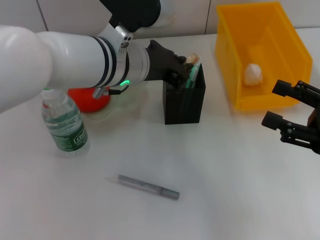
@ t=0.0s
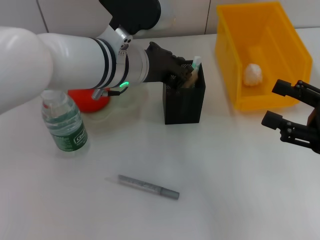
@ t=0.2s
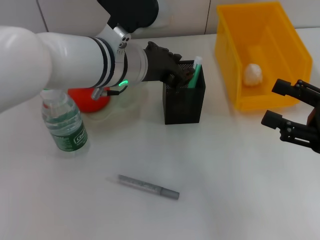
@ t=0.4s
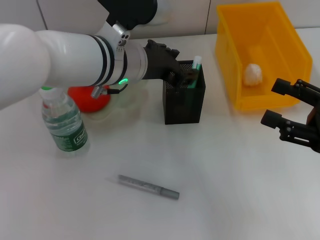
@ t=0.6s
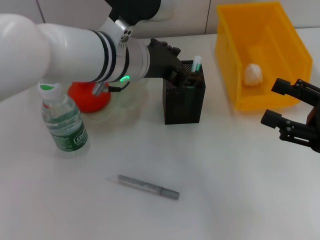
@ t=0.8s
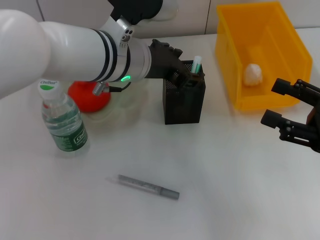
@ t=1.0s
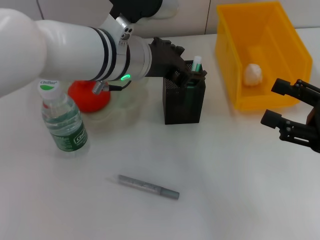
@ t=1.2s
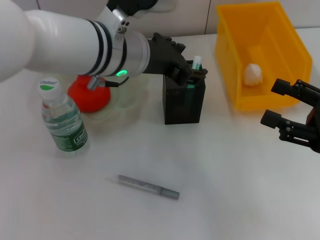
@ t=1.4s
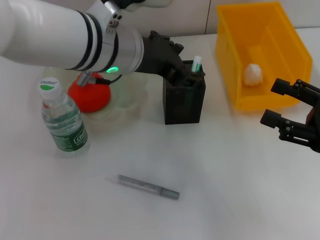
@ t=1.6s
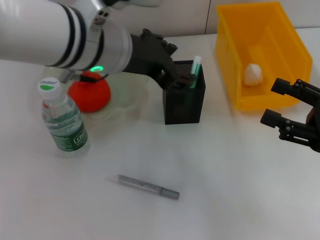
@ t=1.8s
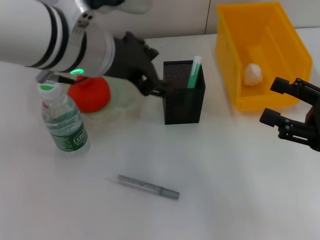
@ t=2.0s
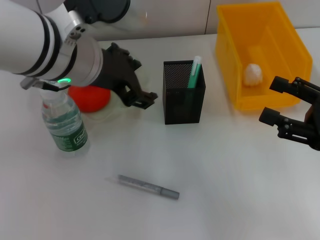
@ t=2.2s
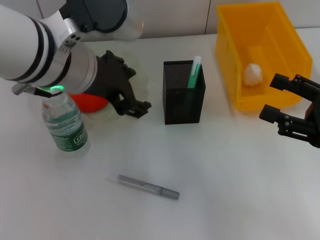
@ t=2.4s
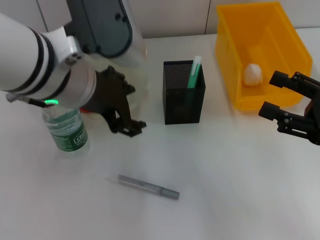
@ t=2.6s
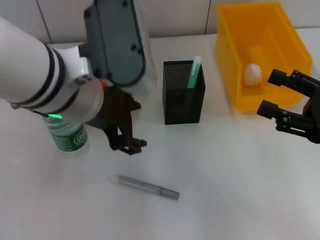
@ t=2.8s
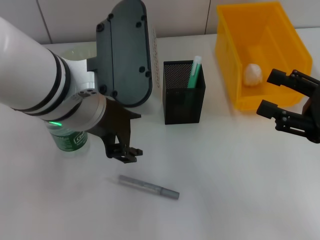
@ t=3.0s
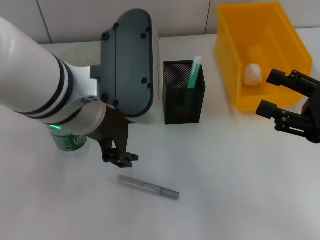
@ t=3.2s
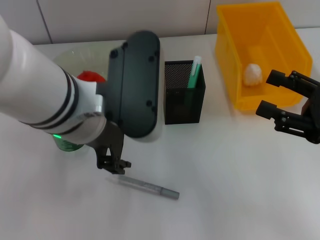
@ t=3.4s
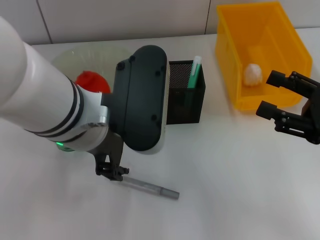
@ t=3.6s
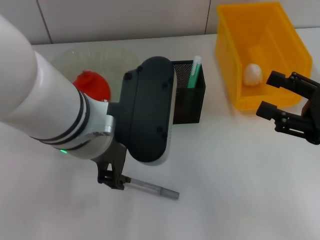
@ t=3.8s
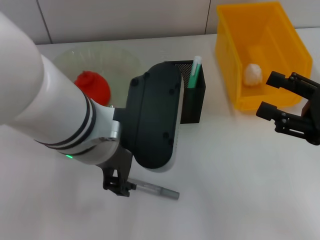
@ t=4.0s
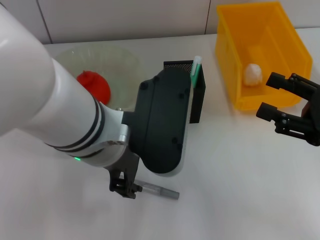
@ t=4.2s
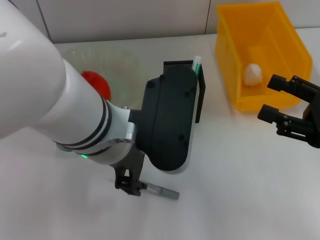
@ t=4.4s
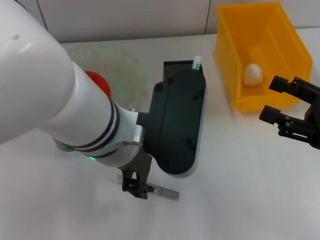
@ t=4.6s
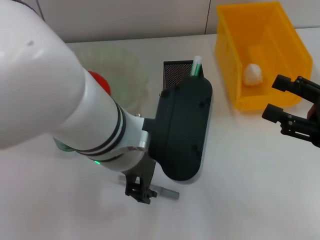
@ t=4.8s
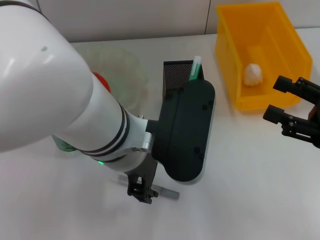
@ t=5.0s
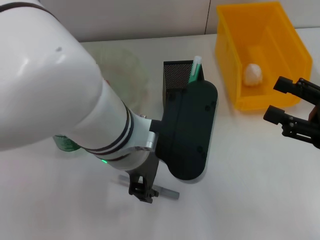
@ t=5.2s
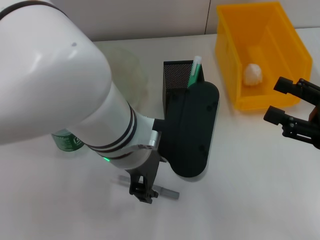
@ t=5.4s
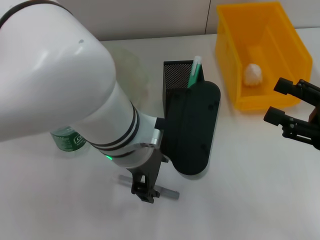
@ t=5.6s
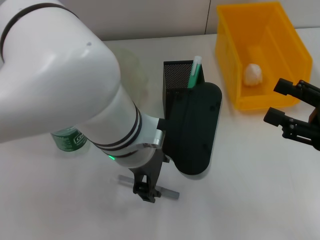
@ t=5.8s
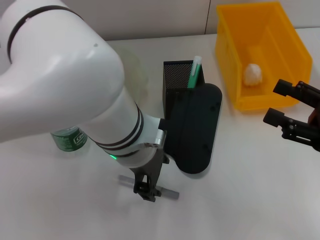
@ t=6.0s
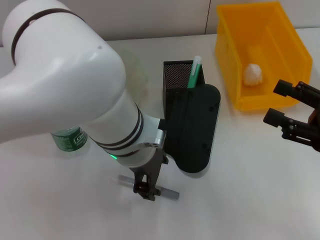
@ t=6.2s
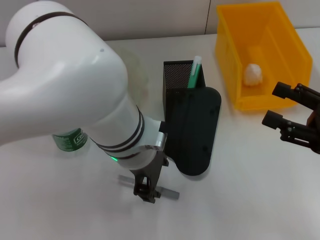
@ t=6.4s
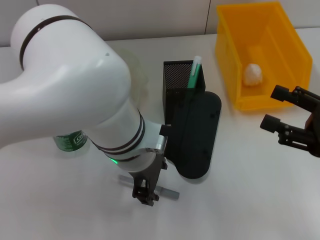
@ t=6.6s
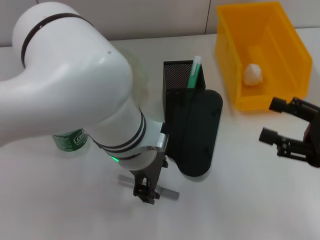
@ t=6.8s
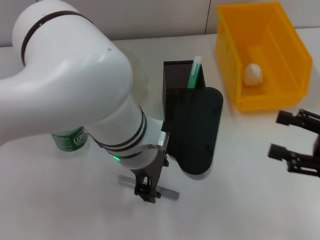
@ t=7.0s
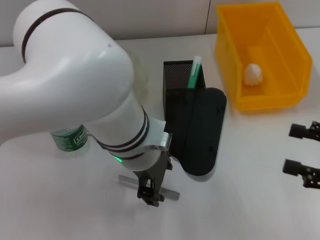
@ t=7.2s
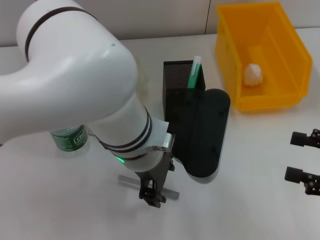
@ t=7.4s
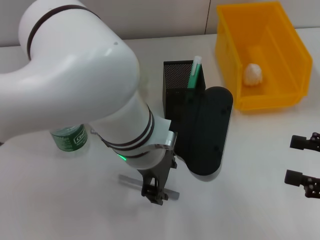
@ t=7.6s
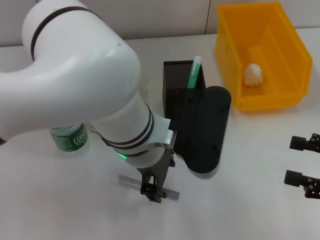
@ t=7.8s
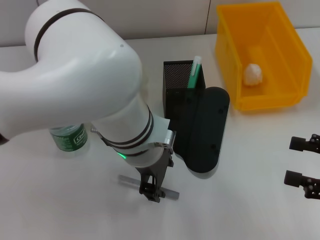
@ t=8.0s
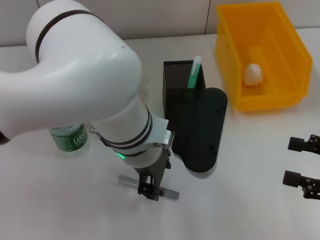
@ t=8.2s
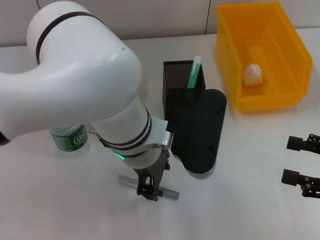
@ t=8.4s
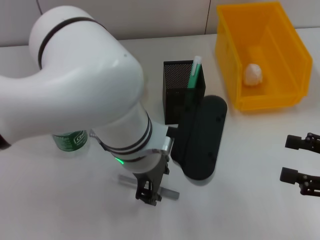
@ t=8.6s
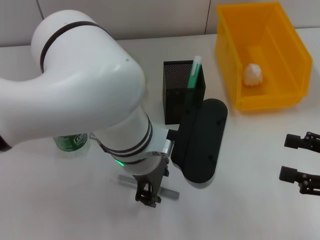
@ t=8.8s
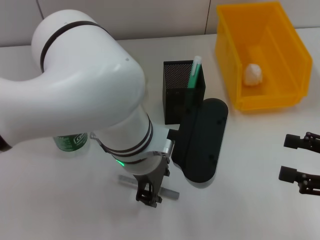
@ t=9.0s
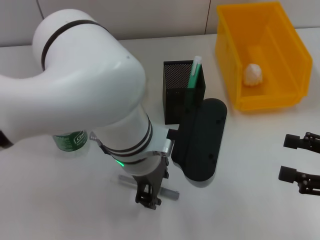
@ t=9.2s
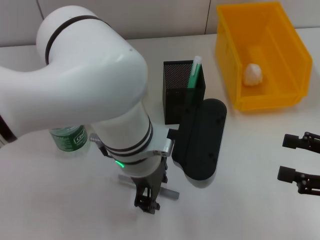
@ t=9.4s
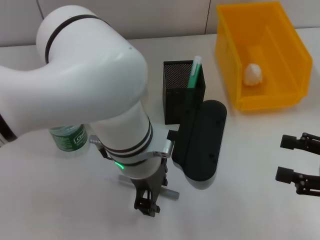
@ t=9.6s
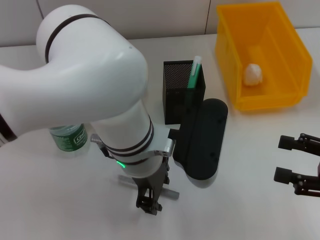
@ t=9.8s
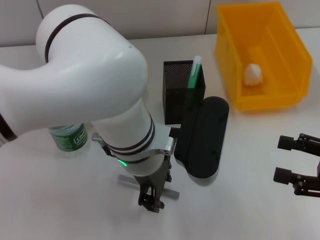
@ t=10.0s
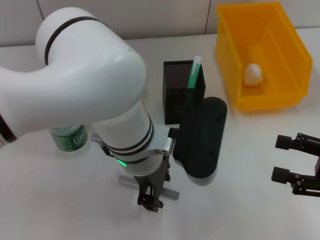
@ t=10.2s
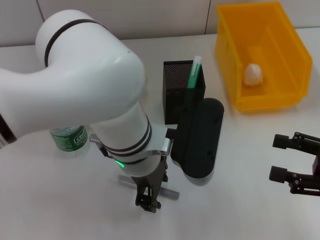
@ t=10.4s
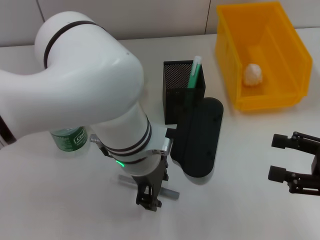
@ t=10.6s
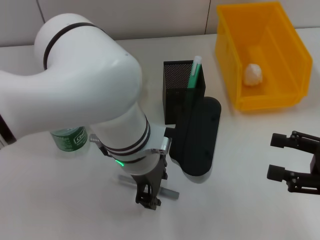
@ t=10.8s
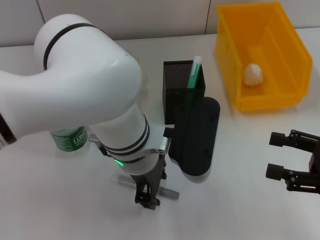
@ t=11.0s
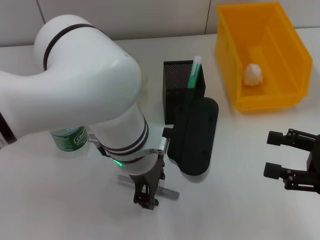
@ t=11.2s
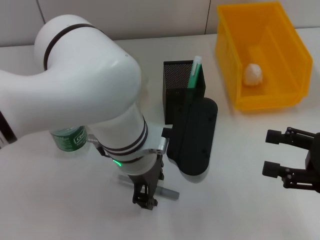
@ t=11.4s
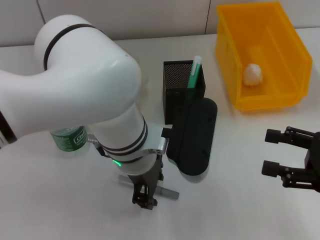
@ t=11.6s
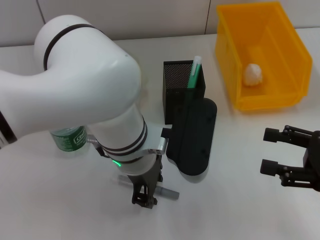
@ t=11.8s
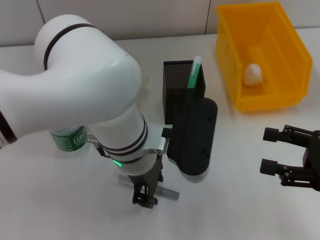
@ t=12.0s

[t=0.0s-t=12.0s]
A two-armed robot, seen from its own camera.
t=0.0s to t=1.6s: The left gripper opens its fingers.
t=1.6s to t=3.0s: The left gripper travels backward by some 5 cm.
t=6.0s to t=9.0s: The grippers move only a little.
t=9.0s to t=10.4s: Neither gripper changes place.
t=10.4s to t=12.0s: The grippers move only a little.

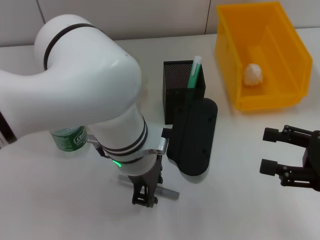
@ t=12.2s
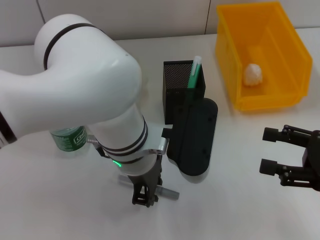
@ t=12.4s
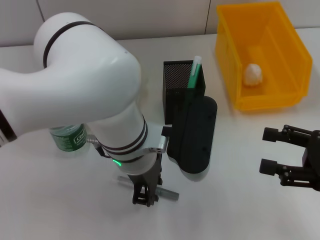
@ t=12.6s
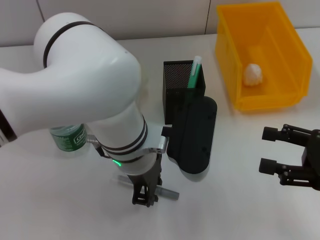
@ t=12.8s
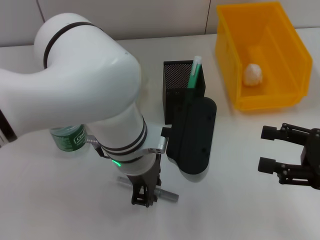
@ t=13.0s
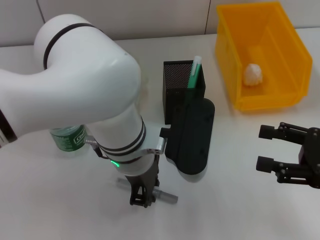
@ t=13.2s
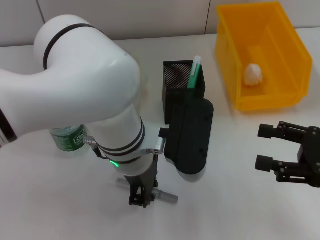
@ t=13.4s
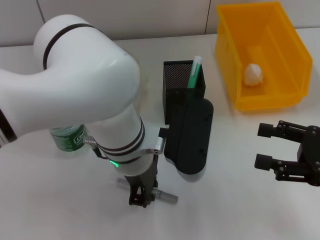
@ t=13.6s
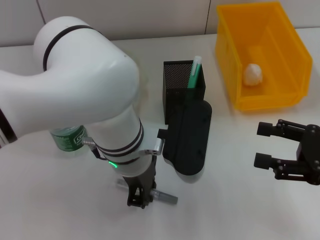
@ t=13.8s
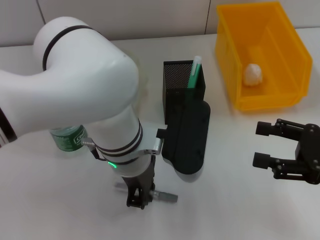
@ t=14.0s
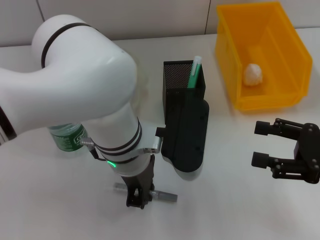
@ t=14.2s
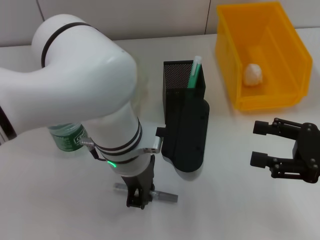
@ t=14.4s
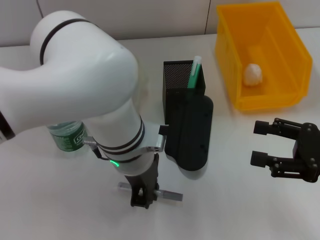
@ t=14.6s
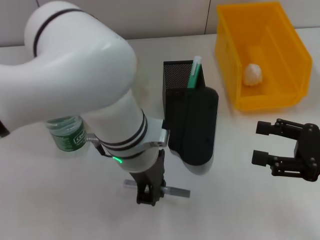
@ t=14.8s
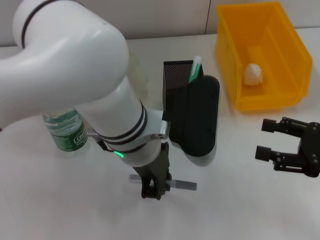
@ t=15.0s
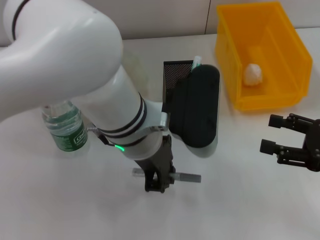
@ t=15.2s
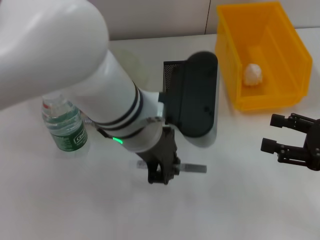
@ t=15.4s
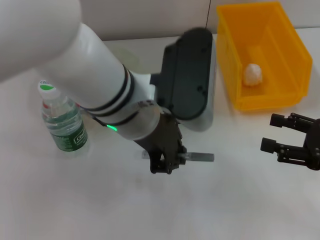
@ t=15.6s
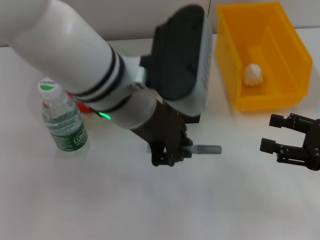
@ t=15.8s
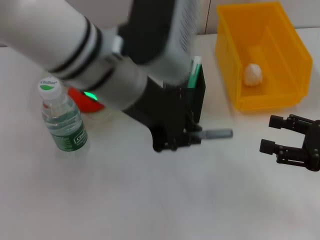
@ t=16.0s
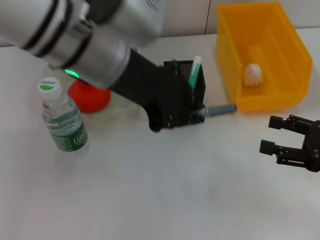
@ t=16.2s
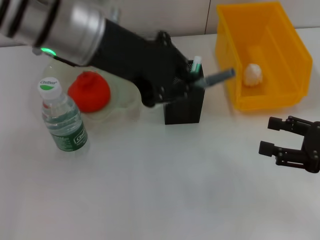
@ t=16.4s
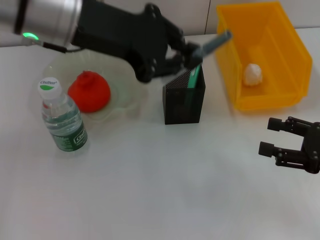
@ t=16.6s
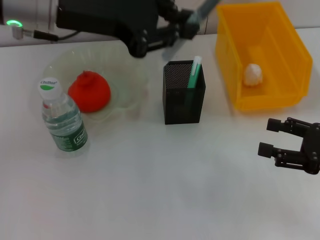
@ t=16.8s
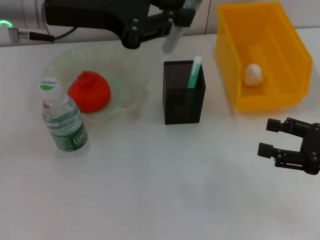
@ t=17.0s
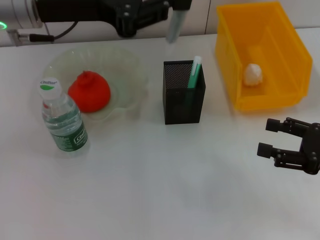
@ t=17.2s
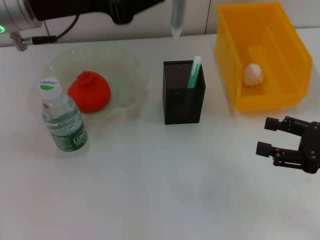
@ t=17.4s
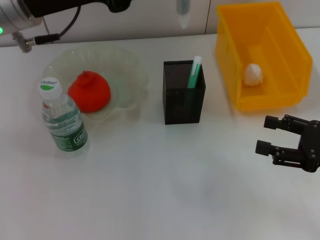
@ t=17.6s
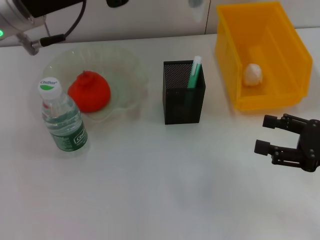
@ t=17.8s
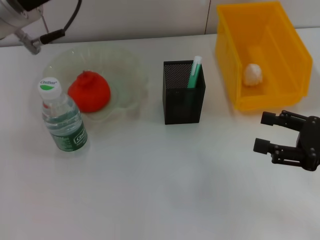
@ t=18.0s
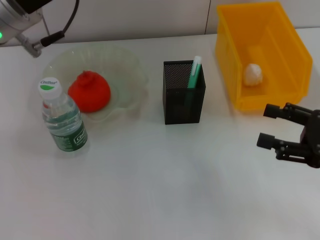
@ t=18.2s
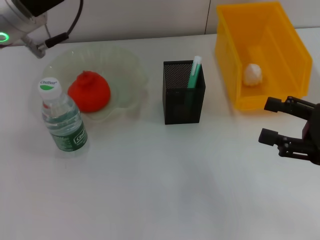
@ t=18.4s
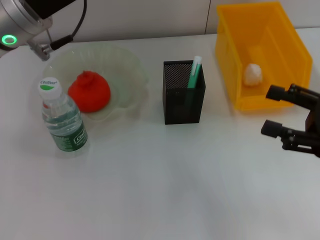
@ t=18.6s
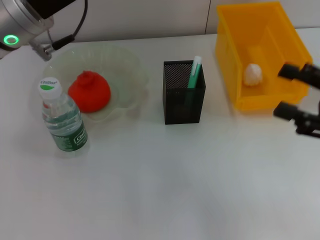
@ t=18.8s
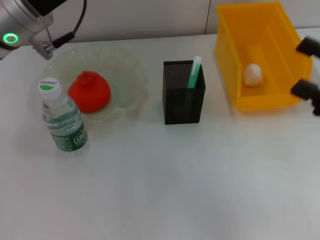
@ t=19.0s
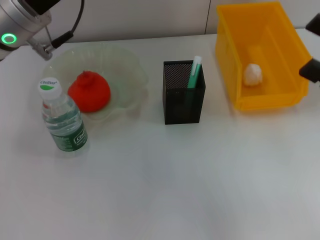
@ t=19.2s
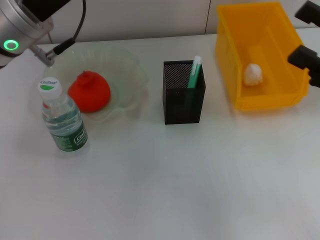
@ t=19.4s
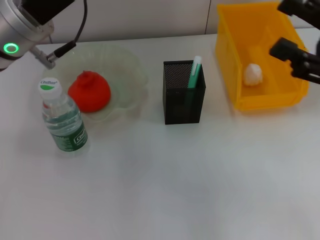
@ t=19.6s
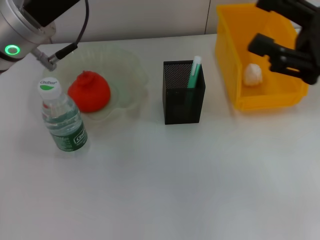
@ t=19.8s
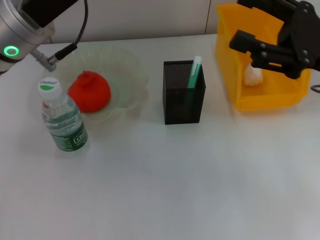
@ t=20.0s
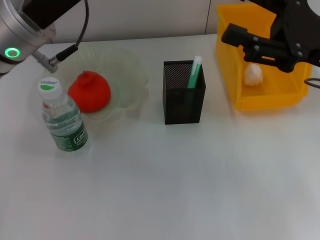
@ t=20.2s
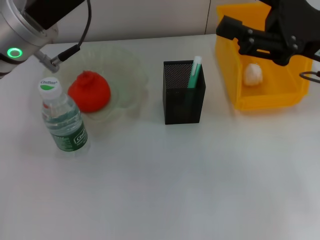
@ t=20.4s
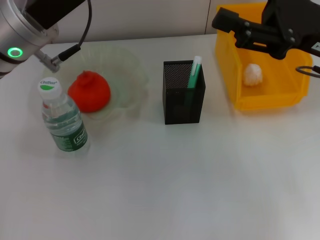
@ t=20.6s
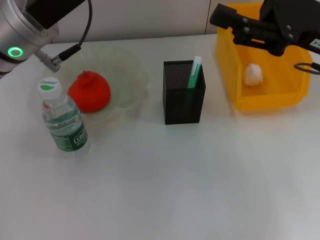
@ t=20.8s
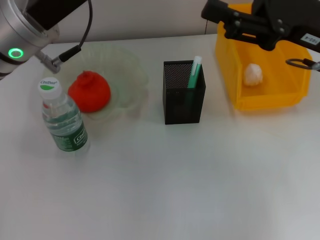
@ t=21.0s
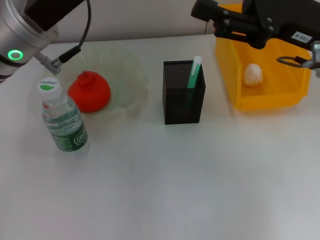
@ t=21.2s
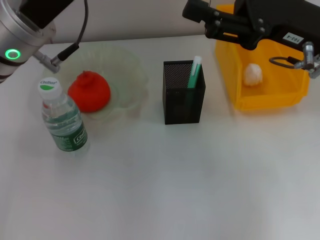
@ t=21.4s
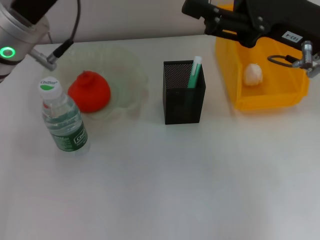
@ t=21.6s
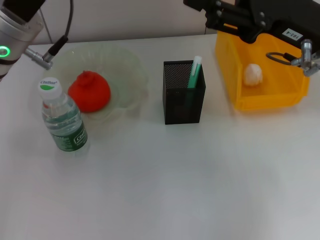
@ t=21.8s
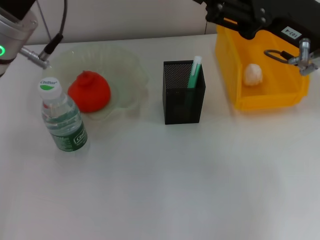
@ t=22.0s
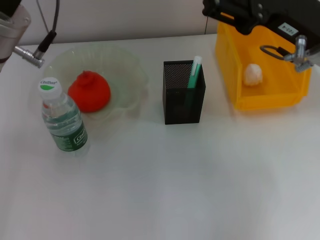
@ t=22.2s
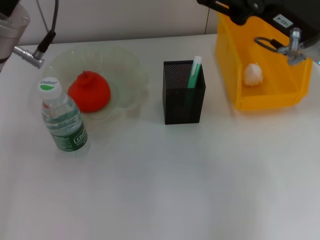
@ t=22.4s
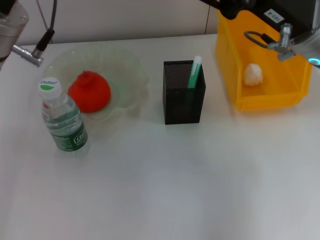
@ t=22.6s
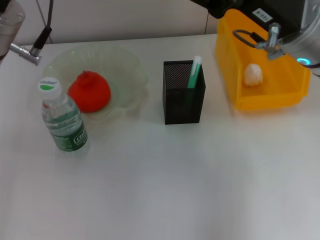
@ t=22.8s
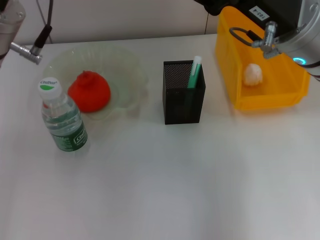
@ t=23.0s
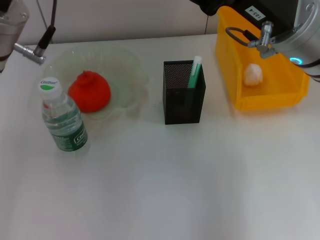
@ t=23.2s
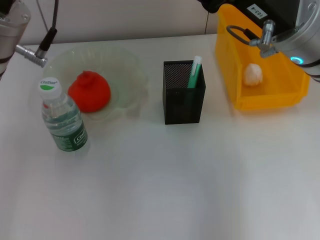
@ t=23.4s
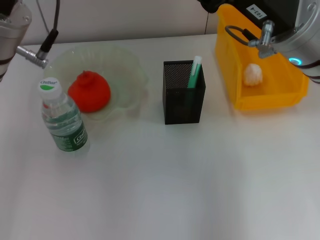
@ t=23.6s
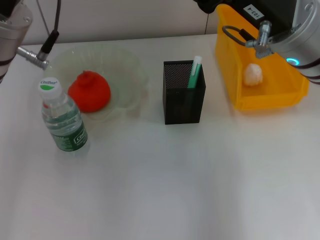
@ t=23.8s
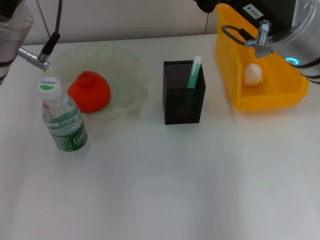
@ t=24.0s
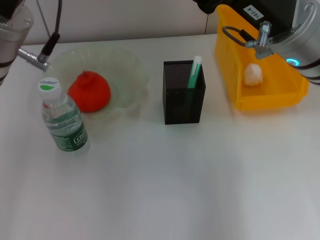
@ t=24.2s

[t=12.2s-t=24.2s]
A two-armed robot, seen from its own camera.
Step, t=12.2s to t=14.4s: Grab the gray glue with the left hand.
t=12.2s to t=13.8s: Both grippers stay about where they are.
t=15.2s to t=16.6s: The left gripper moves upward, to the left and forward, roughly 15 cm.
t=16.6s to t=18.2s: The left gripper shifts by roughly 5 cm.
t=18.2s to t=19.8s: The right gripper shifts about 10 cm upward and forward.
t=19.8s to t=21.2s: The right gripper heads to the left, covering approximately 5 cm.
t=21.2s to t=22.6s: The grippers stay close to where they were, moving slightly.
t=22.6s to t=24.2s: The grippers move only a little.
